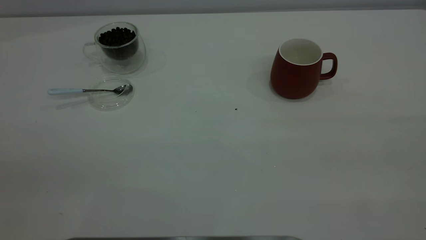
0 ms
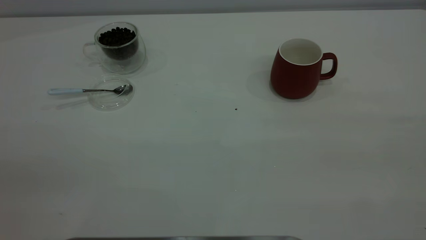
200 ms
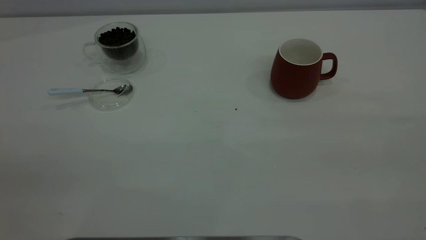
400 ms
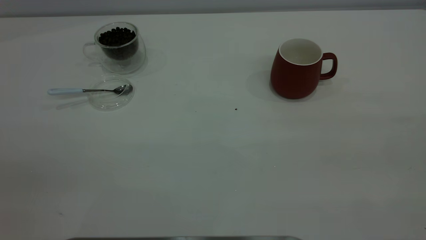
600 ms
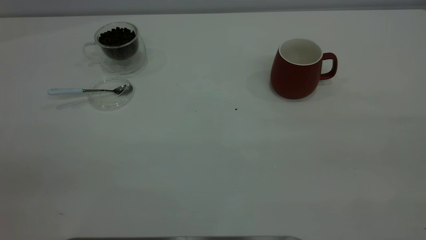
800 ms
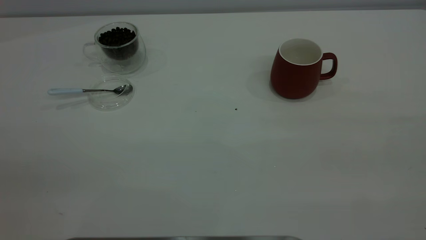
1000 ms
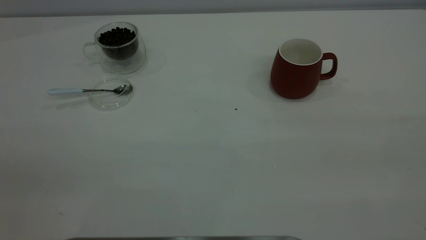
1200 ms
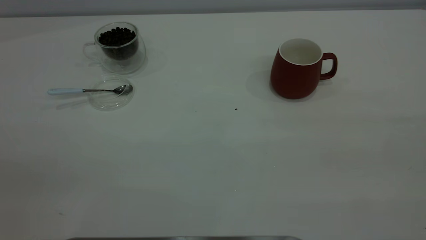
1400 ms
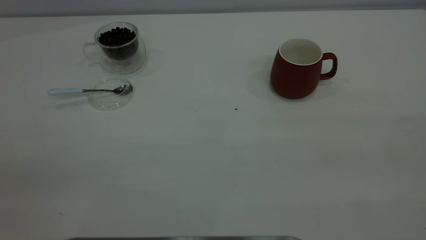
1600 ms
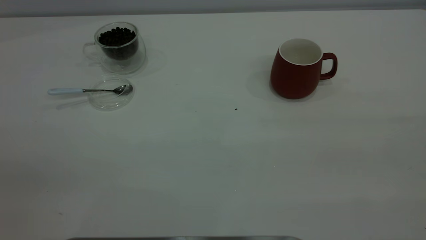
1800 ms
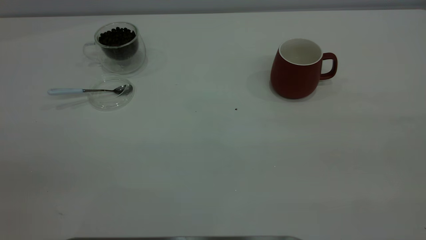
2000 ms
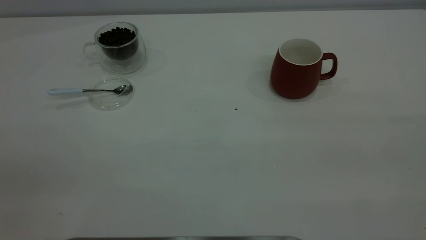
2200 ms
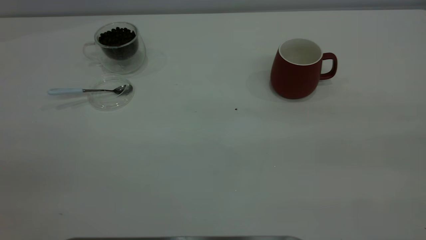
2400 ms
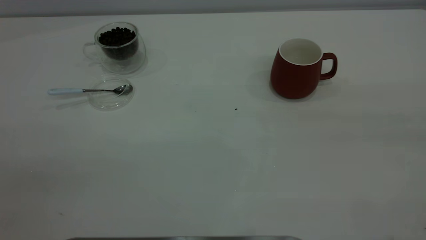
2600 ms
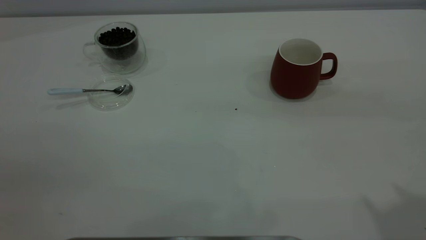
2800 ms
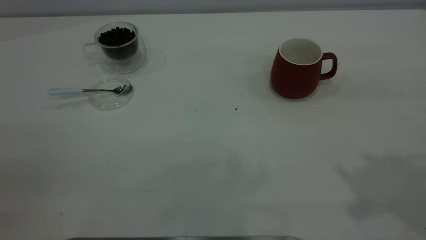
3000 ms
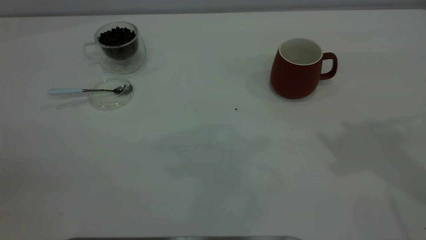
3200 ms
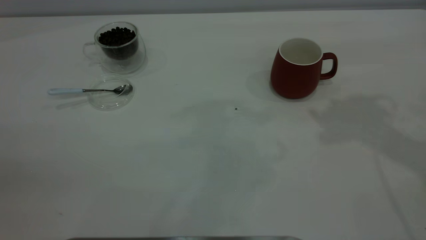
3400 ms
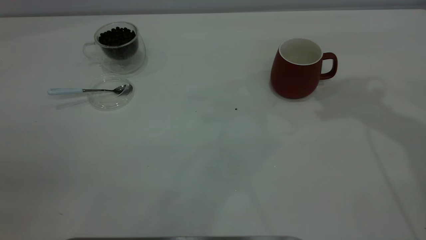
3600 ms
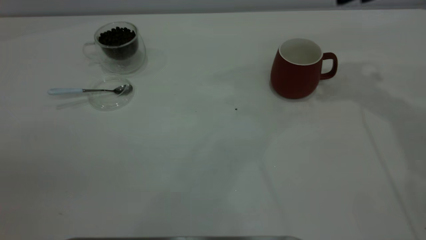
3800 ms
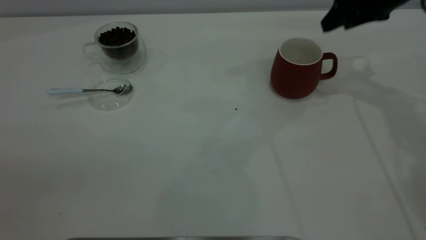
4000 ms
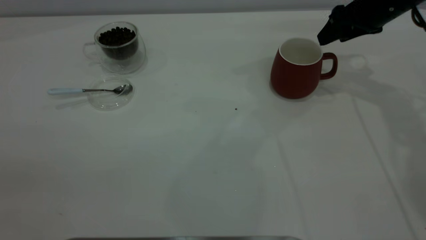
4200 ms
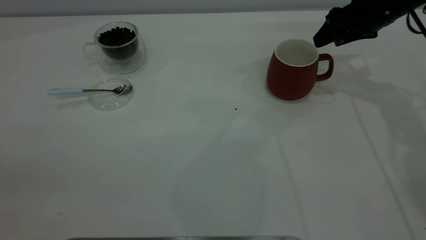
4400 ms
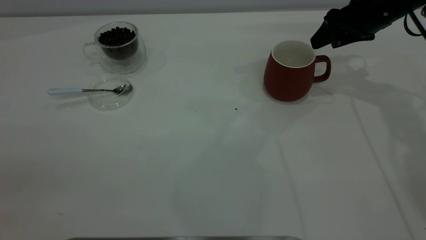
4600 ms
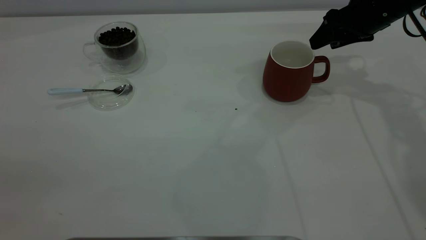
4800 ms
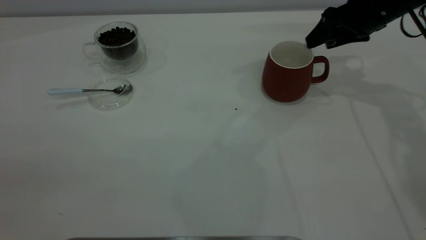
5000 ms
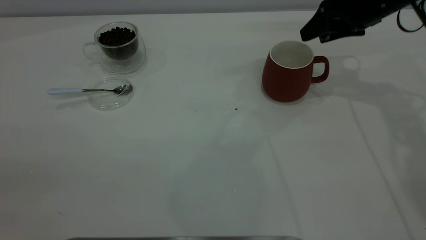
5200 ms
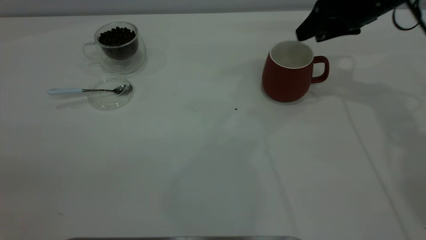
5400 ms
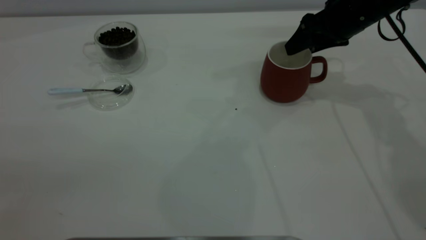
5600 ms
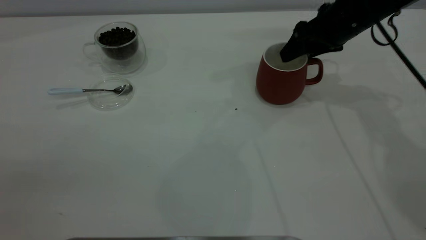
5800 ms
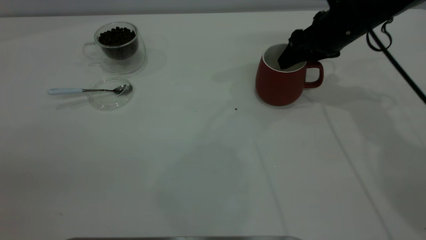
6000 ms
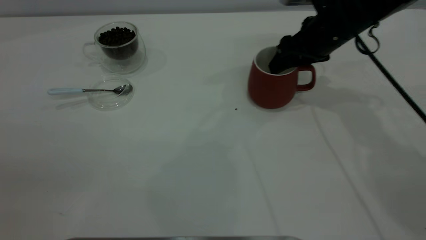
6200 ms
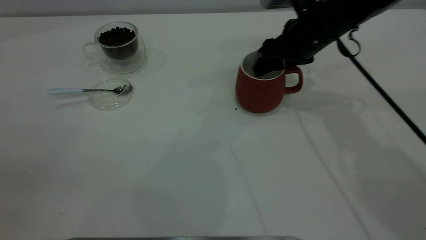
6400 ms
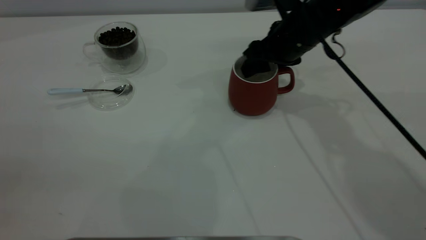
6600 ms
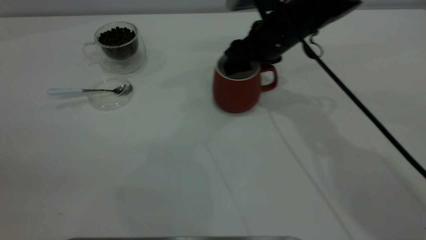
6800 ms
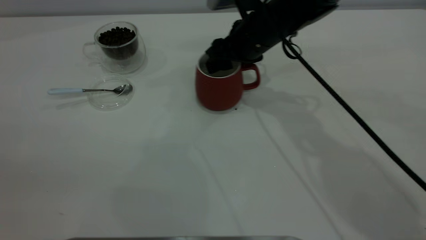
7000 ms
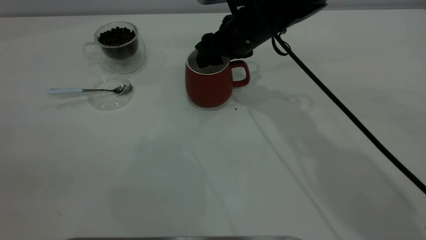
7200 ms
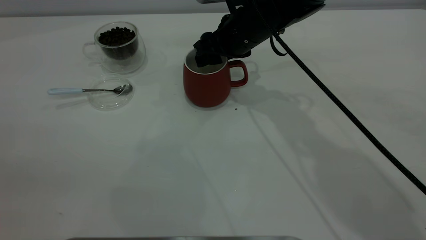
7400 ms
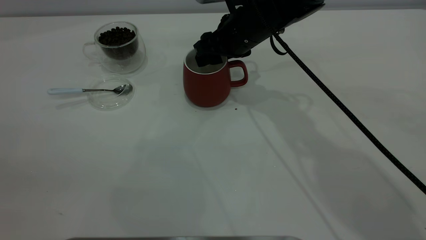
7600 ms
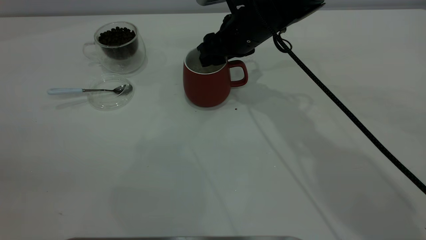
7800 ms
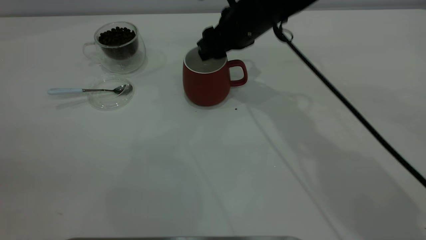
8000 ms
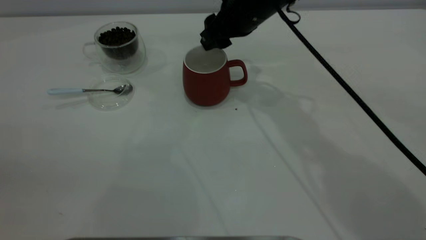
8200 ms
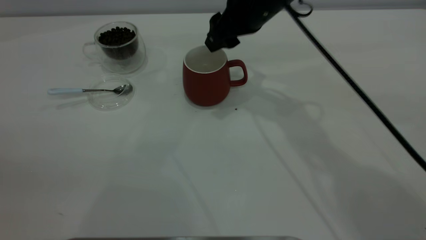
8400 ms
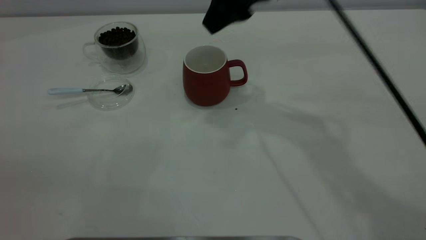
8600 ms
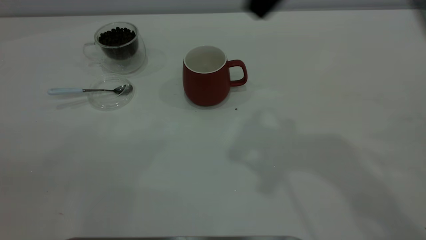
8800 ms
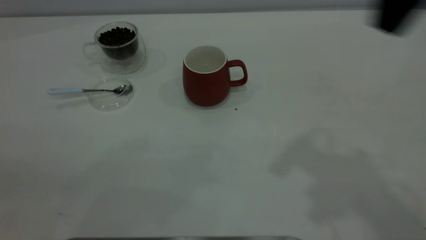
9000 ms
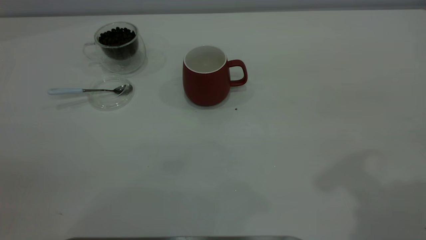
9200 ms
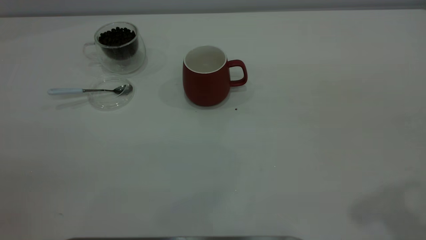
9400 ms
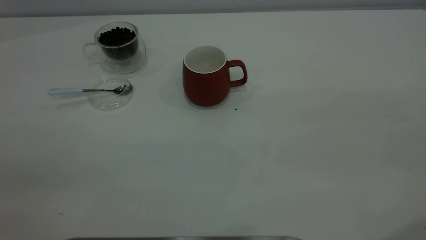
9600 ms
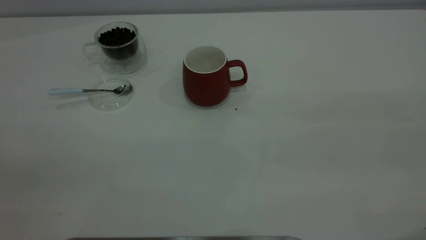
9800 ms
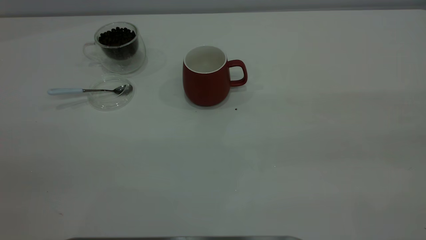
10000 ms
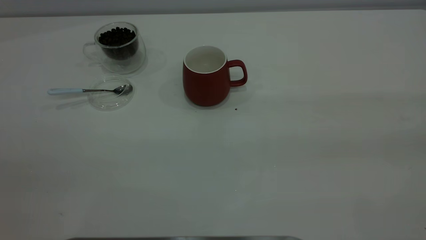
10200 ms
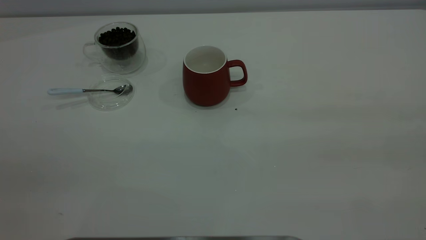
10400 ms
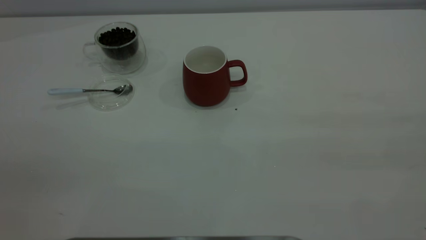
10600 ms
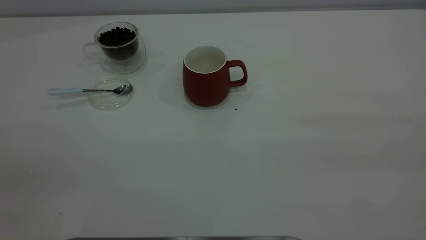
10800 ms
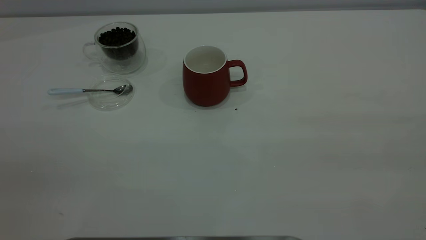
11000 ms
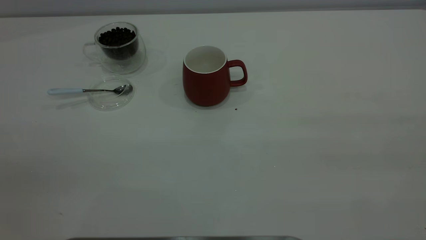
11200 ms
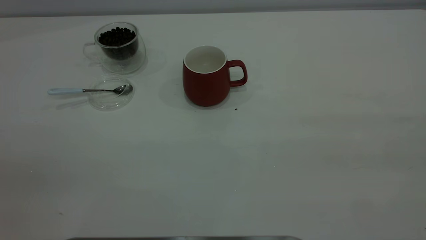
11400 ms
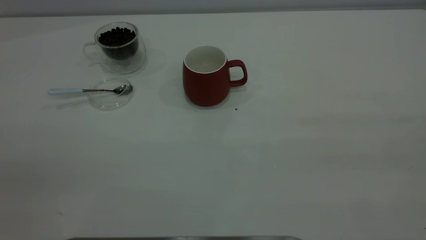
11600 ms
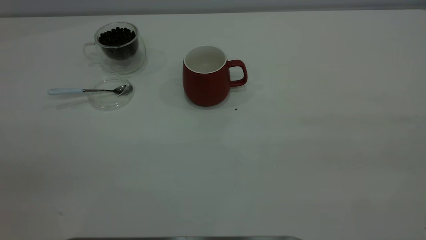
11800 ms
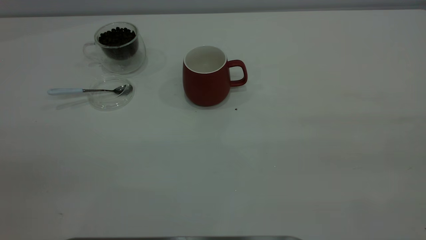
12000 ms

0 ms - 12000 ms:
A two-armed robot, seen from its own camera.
Task of the whole recording: the right gripper place the red cup in the center of the table, the left gripper take the blue spoon from the cup lid and scoop out the coffee beans from the coffee cup and put them into the red cup, the left gripper put the spoon back into the cup lid.
Step, 0 ms - 8200 ms: Move the cup to the center of view.
0 ms - 1600 ms: The two grippers keep their place.
3000 ms - 4400 ms: The right gripper heads forward and downward, covering roughly 30 cm.
4400 ms - 6000 ms: The right gripper travels to the left by about 5 cm.
6000 ms - 7600 ms: The right gripper goes some 15 cm to the left, and closes up.
7600 ms - 9000 ms: The right gripper travels upward, backward and to the right by roughly 35 cm.
9000 ms - 10400 ms: The right gripper heads backward and to the right, covering about 25 cm.

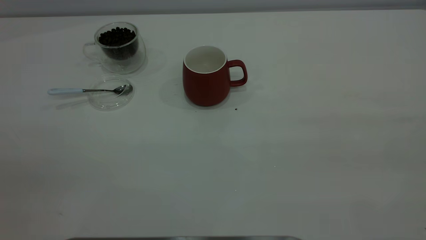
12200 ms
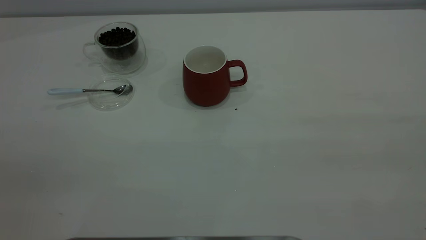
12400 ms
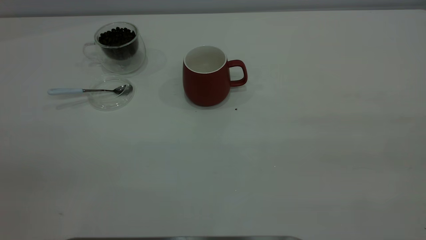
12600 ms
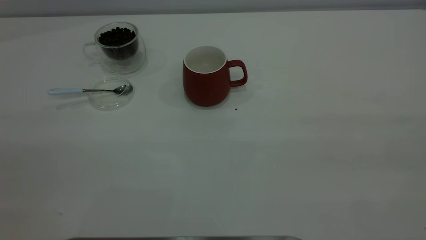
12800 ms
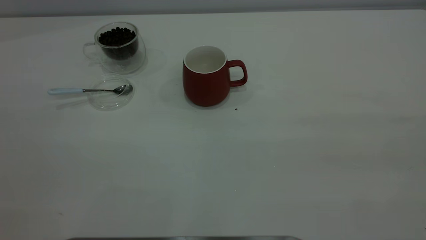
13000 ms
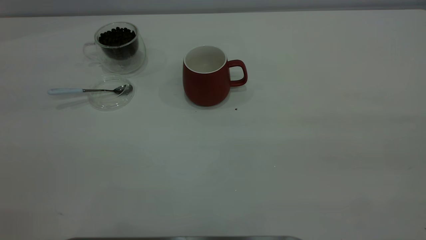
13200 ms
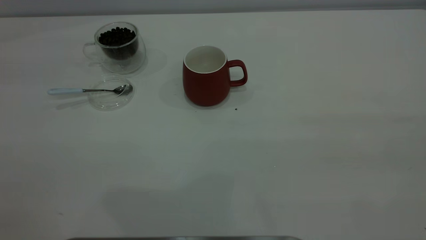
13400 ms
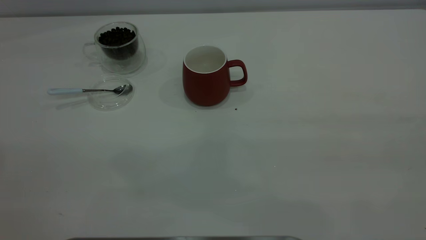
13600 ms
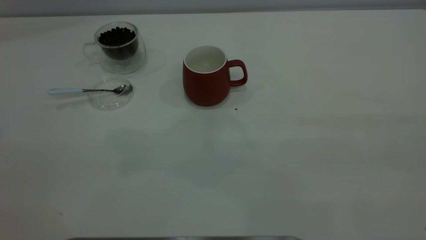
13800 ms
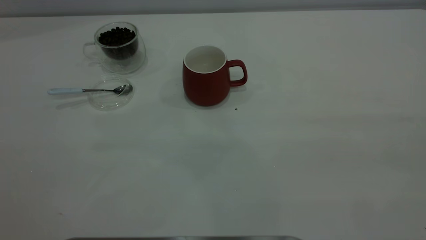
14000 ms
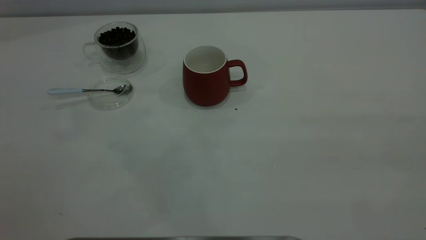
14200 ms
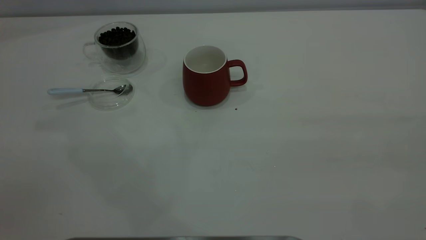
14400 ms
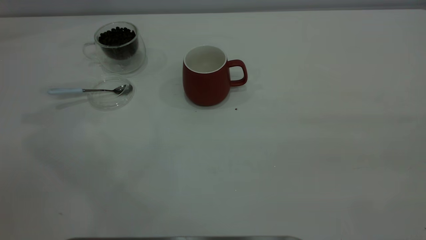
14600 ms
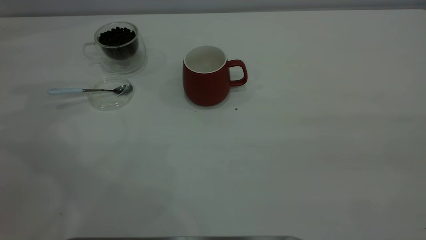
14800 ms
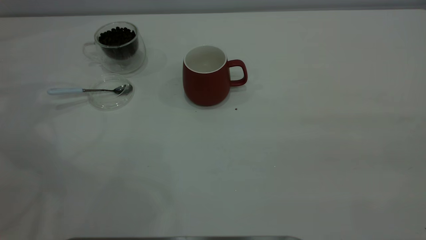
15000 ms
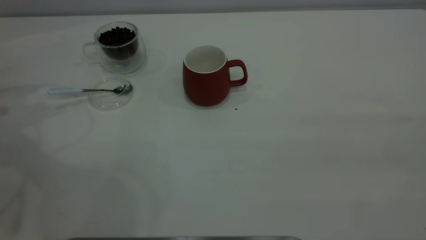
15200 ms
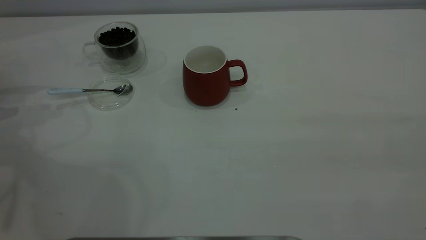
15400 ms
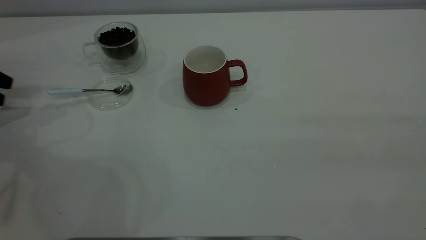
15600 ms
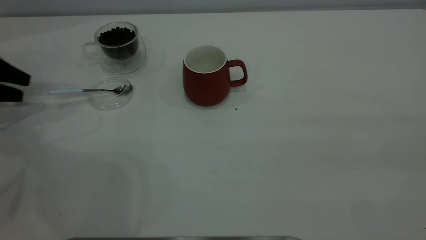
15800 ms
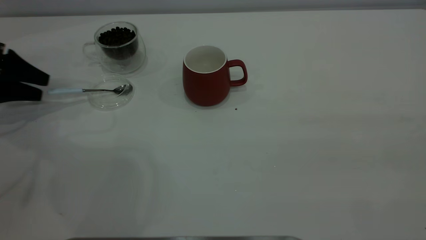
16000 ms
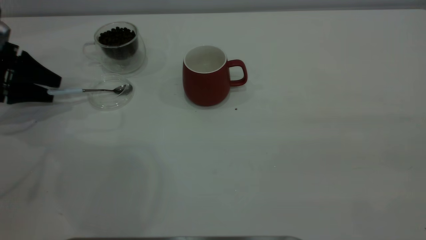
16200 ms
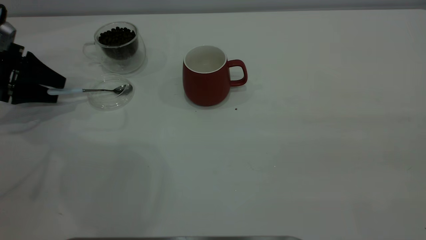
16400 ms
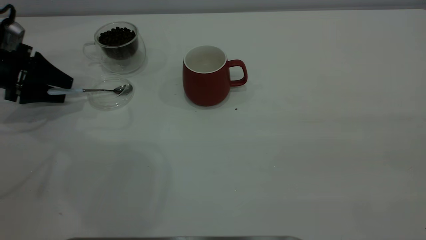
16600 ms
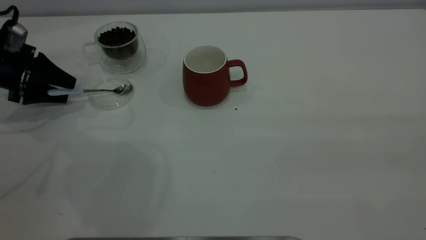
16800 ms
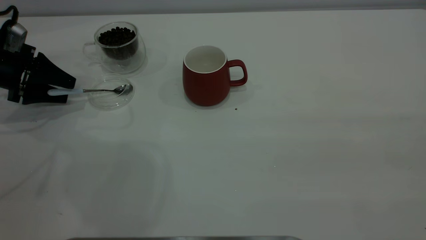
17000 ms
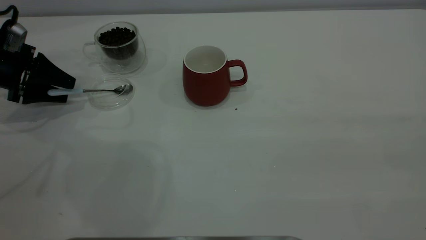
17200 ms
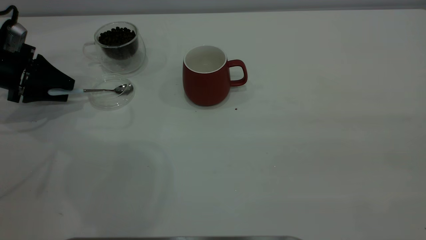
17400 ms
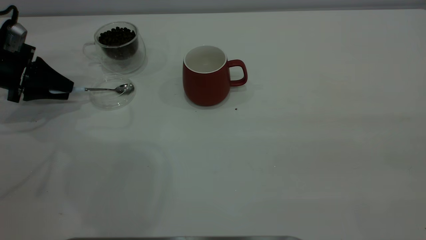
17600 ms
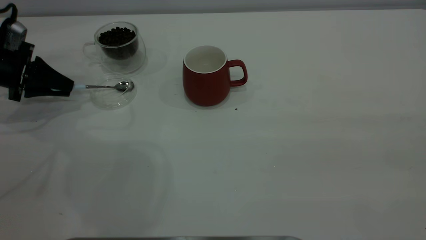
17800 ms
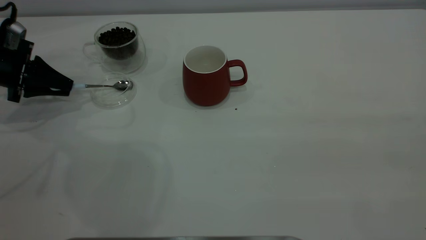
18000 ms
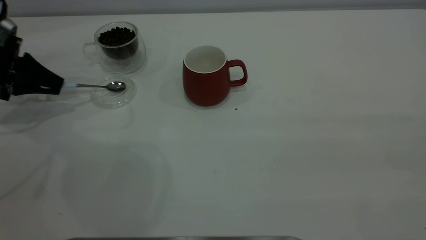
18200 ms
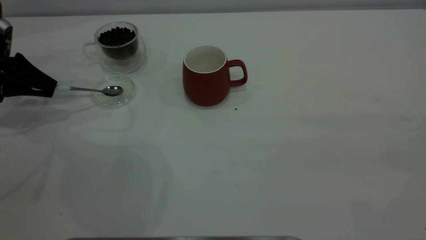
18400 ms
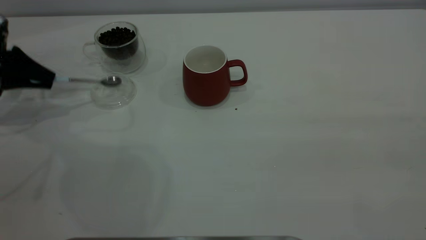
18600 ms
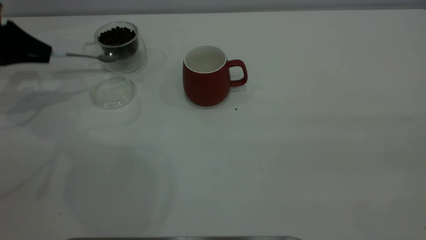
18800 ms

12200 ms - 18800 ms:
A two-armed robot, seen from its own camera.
Task of the whole recording: the right gripper place the red cup in the center of the table, the left gripper take the blue spoon from the cup lid and scoop out the coffee beans from the coffee cup and put them into the red cup, the left gripper put the spoon back into the cup lid.
15400 ms - 17200 ms: The left gripper shifts about 10 cm to the right.
17200 ms - 18800 ms: The left gripper shifts roughly 5 cm upward, and closes its fingers.
